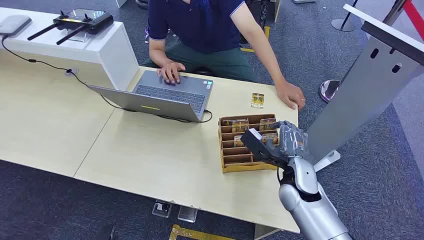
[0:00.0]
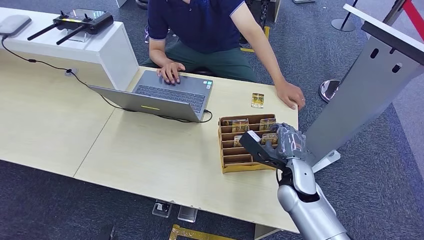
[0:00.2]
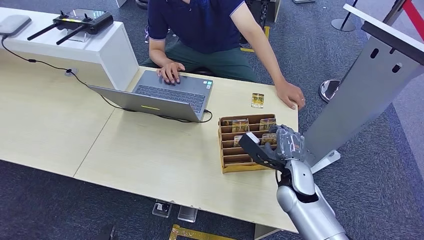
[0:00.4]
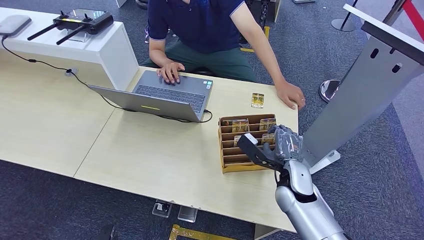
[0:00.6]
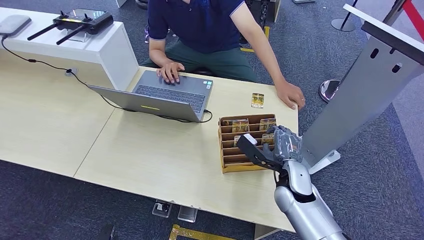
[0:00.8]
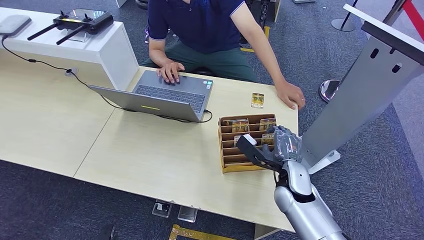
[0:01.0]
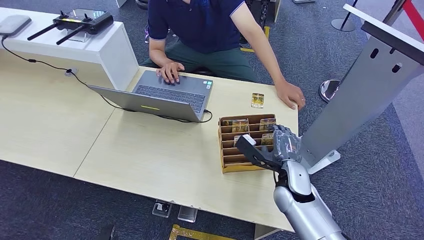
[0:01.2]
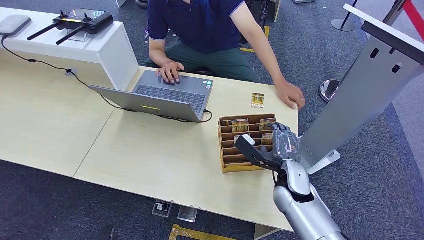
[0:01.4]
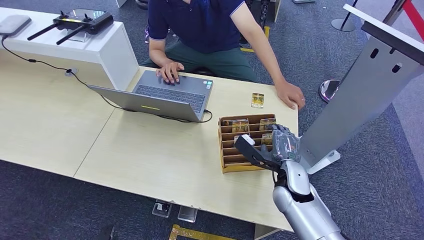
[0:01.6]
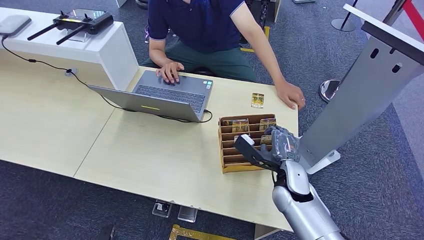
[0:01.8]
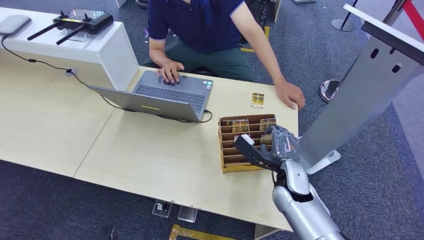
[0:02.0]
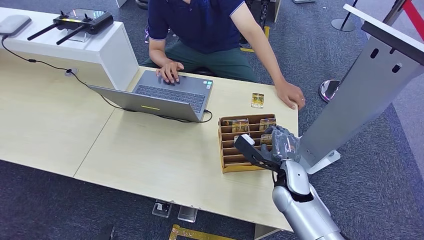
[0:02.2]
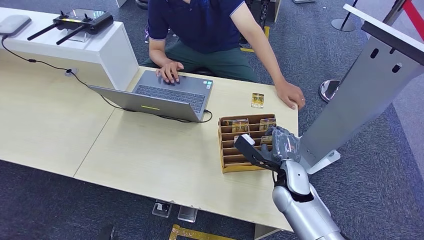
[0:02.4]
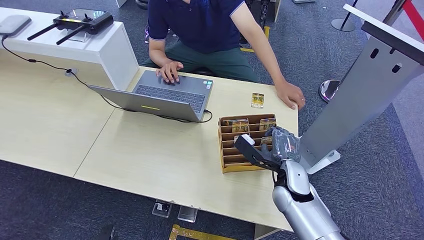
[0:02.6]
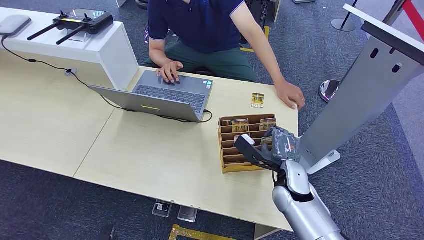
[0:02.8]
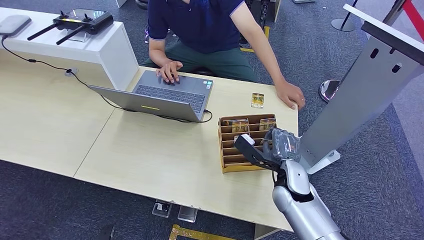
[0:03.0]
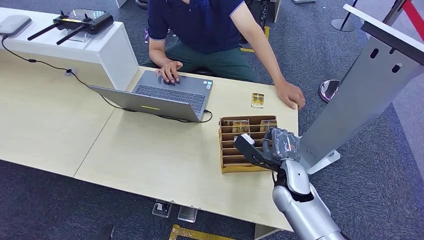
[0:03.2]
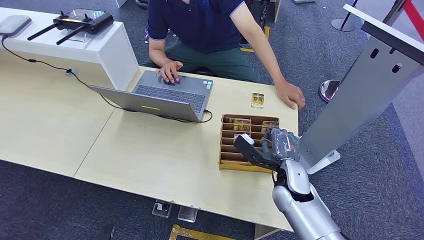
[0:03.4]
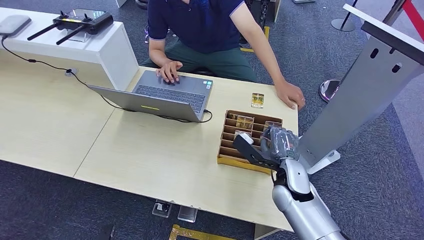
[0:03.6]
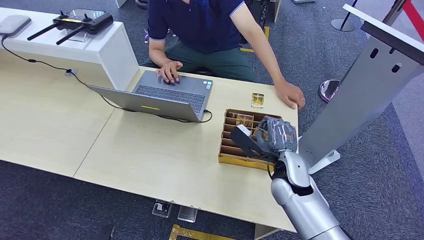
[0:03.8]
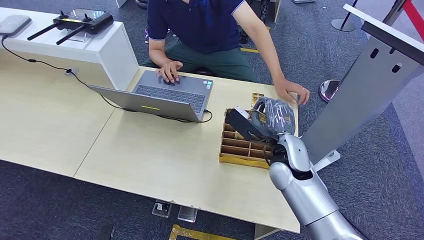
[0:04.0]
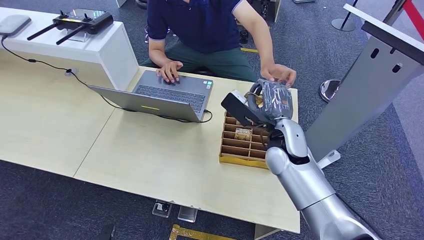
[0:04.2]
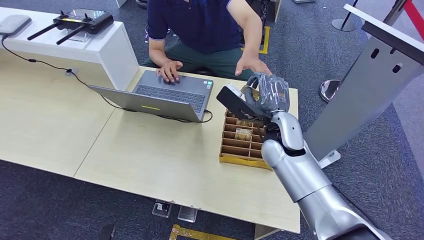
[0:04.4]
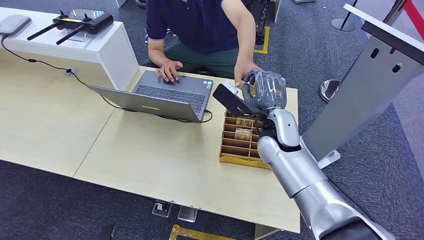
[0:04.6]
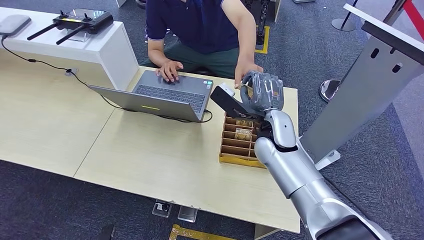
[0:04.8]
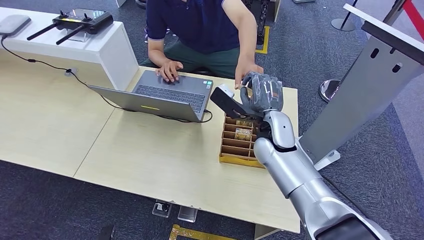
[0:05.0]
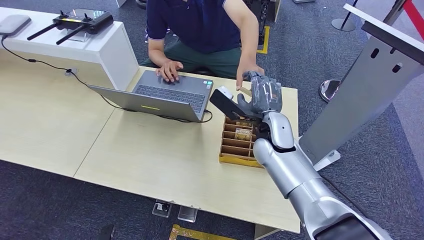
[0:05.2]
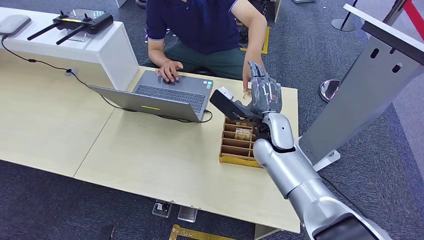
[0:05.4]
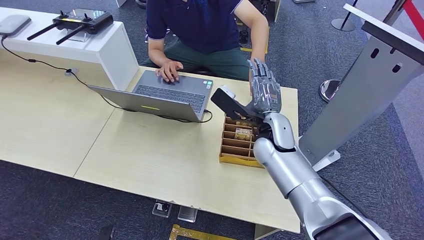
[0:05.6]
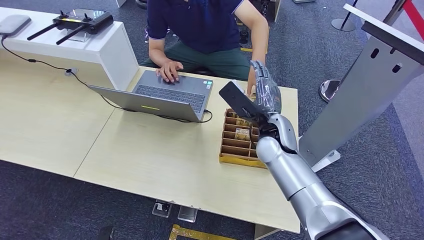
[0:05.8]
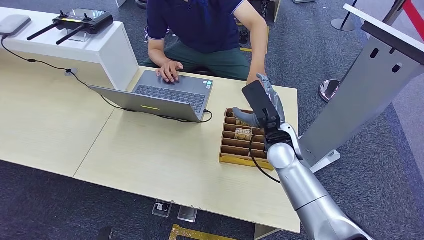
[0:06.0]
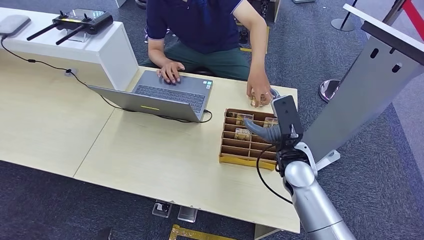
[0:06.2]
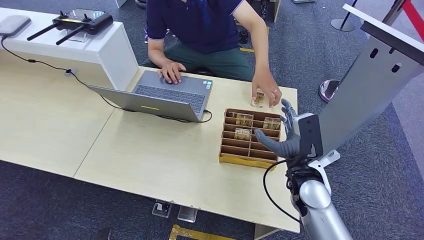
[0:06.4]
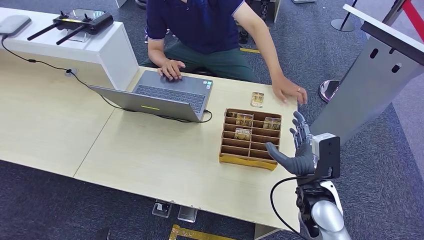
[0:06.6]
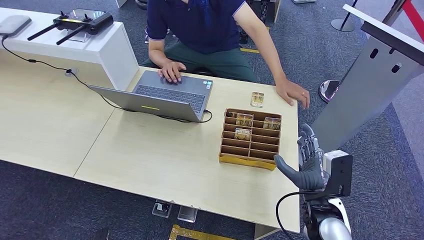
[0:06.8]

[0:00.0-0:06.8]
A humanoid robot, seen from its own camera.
Step, 0:00.0 to 0:03.4: Pick up the room card from the card holder.
Step, 0:03.6 to 0:06.8: Hand the room card to the target.
0:01.4 to 0:02.8: Both hands stay about where they are.
0:02.8 to 0:04.0: The right hand travels upward, to the left and forward by about 15 cm.
0:04.0 to 0:05.4: The hands move only a little.
0:05.4 to 0:06.8: The right hand shifts some 25 cm backward, to the right and downward.
